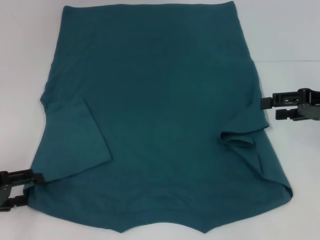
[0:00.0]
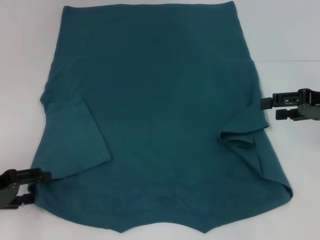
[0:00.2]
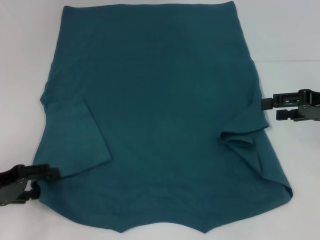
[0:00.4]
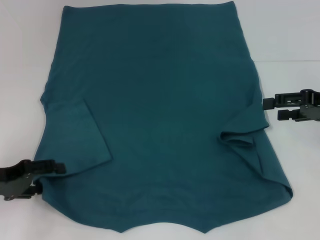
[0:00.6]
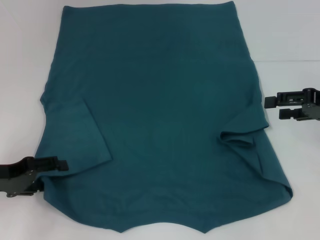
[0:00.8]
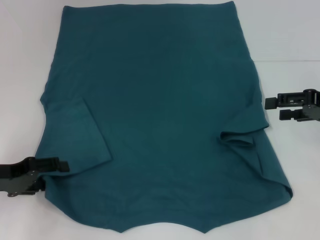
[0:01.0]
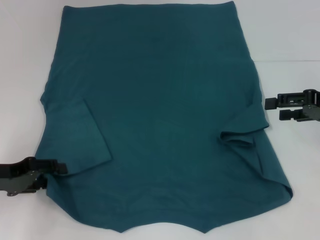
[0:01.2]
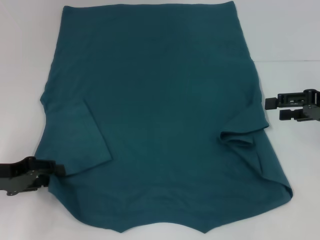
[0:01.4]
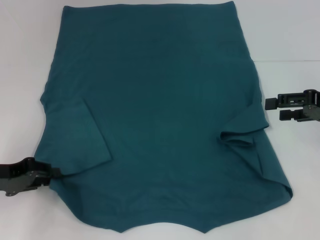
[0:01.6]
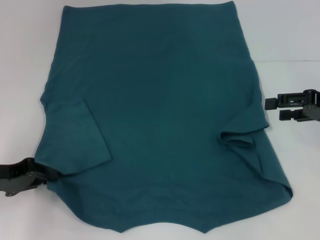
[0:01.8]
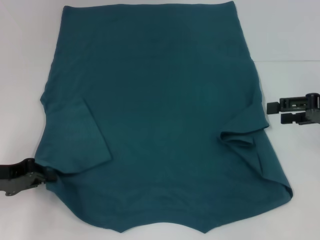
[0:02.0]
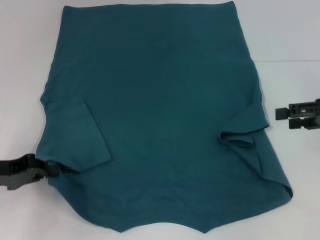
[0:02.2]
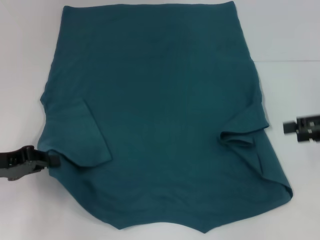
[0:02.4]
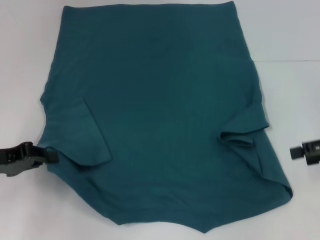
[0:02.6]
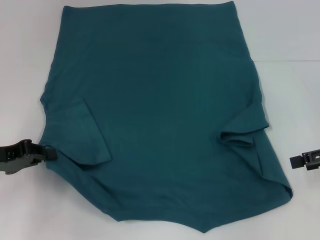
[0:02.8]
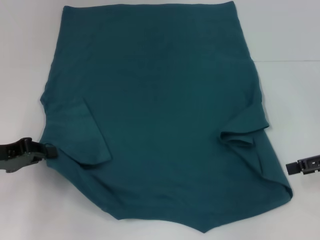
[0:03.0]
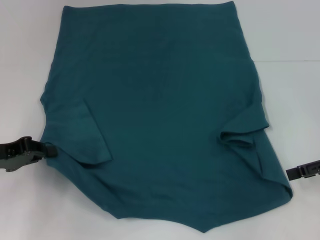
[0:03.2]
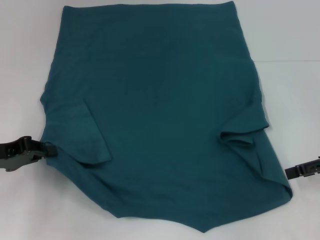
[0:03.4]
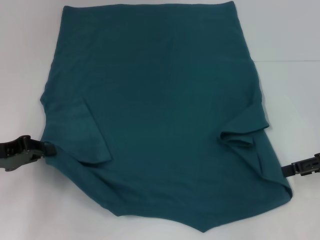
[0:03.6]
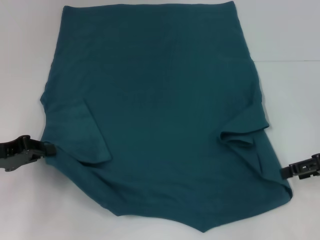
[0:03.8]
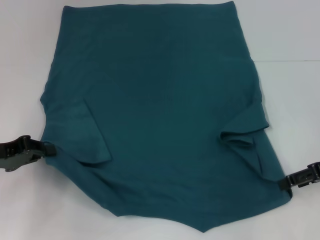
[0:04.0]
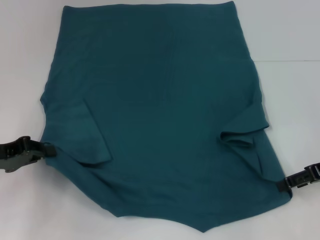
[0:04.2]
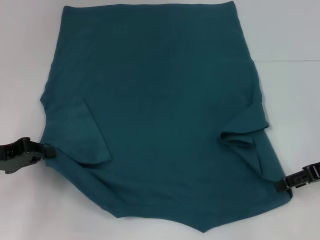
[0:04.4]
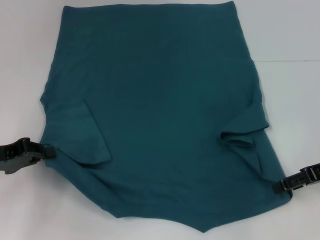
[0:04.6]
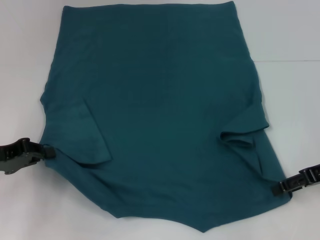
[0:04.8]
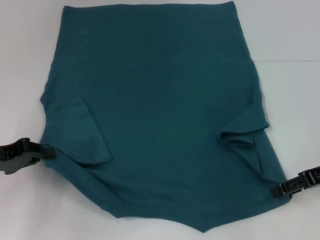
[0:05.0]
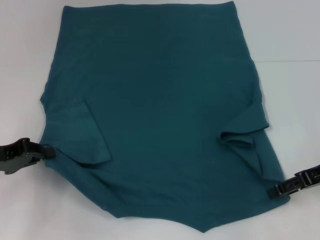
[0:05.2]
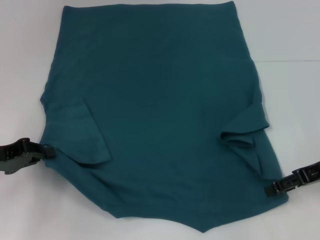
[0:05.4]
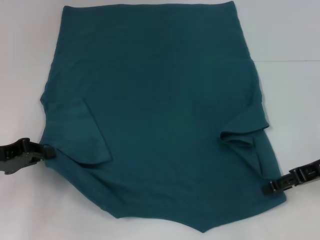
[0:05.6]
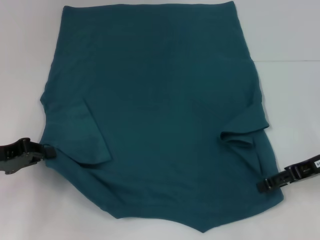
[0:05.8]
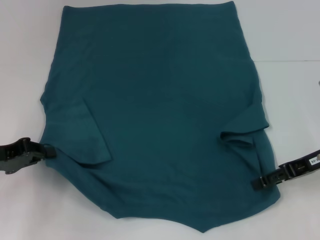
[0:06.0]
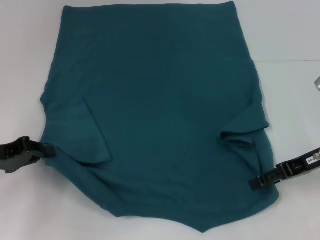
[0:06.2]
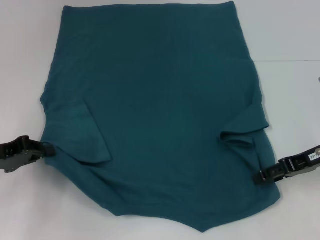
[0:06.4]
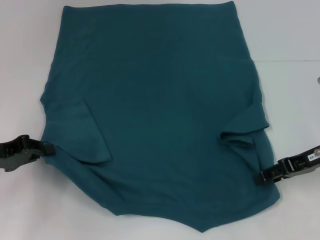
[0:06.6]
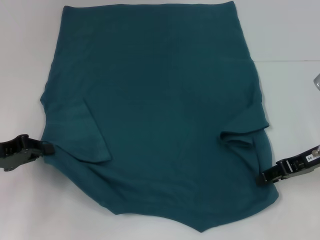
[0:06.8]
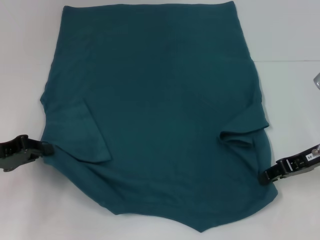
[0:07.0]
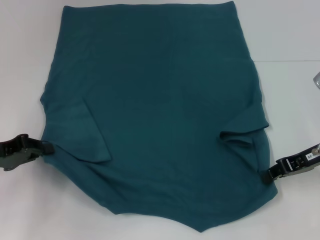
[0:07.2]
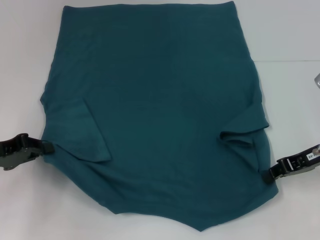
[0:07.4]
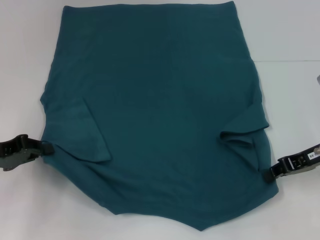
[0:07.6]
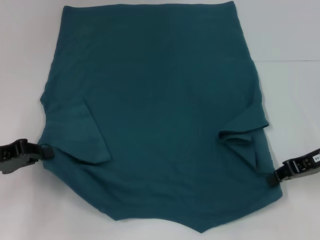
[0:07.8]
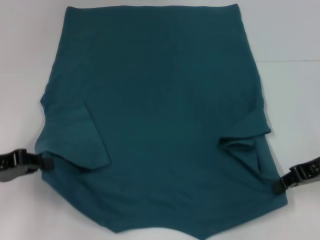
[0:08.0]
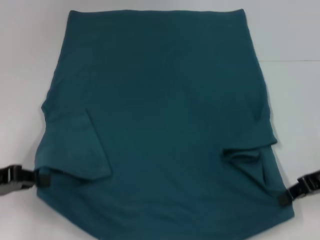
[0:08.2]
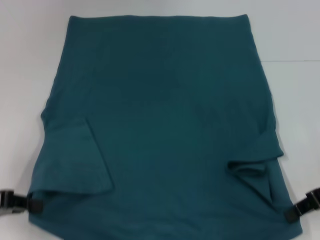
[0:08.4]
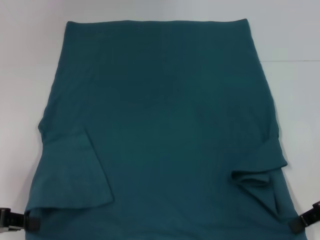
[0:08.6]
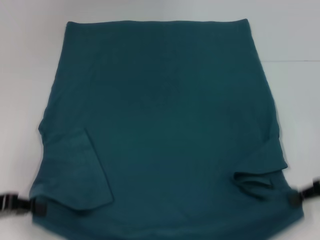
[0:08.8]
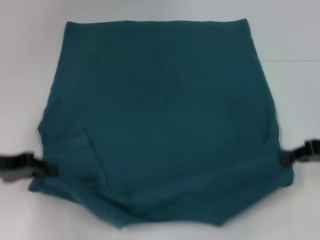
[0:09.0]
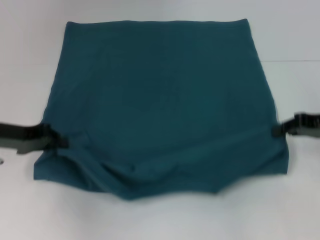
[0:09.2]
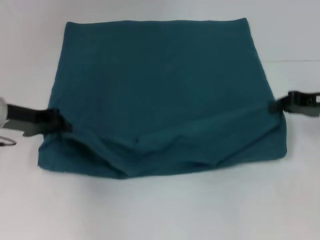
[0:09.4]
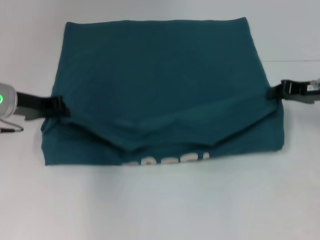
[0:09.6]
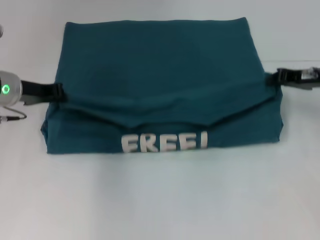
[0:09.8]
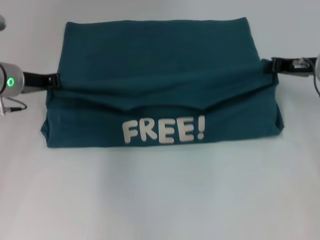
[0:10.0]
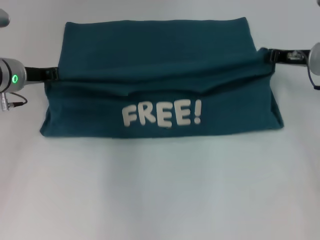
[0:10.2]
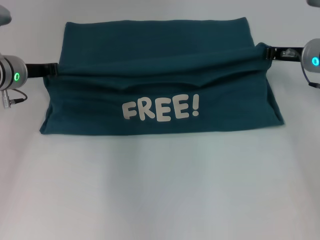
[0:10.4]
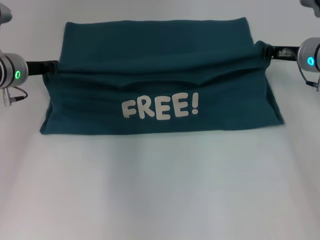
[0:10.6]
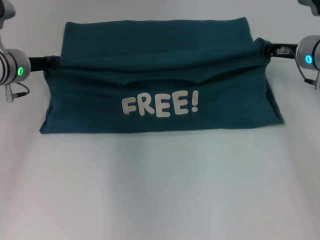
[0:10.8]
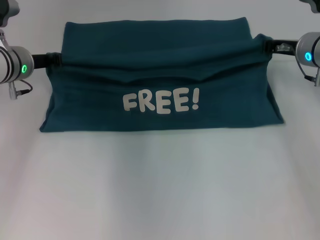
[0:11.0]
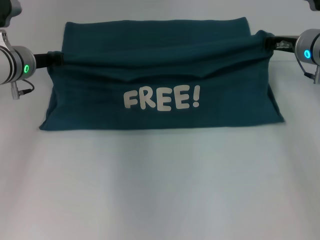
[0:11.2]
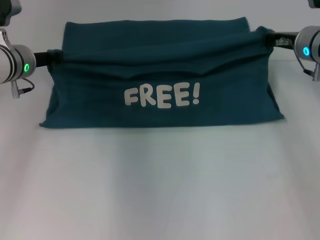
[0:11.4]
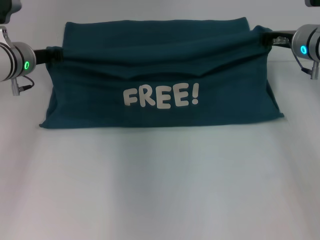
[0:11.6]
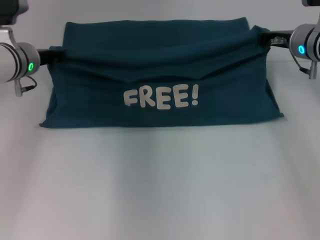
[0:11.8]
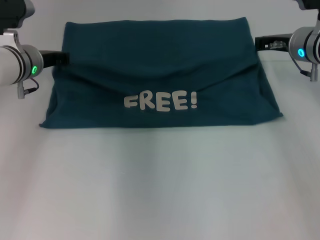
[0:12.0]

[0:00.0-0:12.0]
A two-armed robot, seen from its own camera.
Step, 0:02.0 to 0:07.4: Grab the bottom right corner with your right hand.
0:00.0 to 0:01.6: The left gripper closes its fingers.
0:01.6 to 0:03.0: The left gripper closes up.
0:03.0 to 0:04.4: The grippers make only small movements.
0:04.4 to 0:06.0: The grippers stay close to where they were, moving slightly.
0:06.0 to 0:07.6: The right gripper closes its fingers.
0:07.6 to 0:09.0: The right gripper ends up some 5 cm from where it was.
0:09.0 to 0:10.4: The left gripper moves forward and to the right, roughly 15 cm; the right gripper heads forward and to the left, covering about 15 cm.
0:10.4 to 0:12.0: The grippers move only a little.

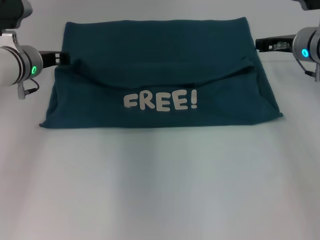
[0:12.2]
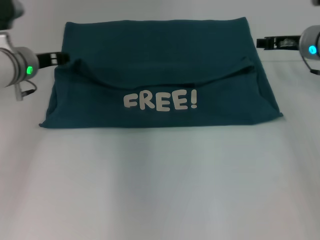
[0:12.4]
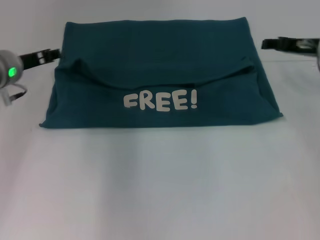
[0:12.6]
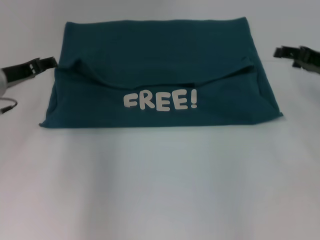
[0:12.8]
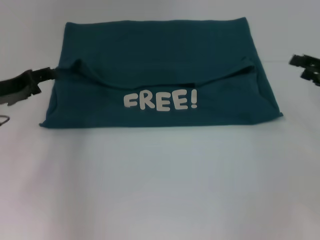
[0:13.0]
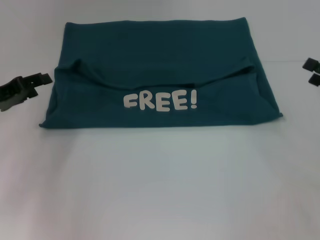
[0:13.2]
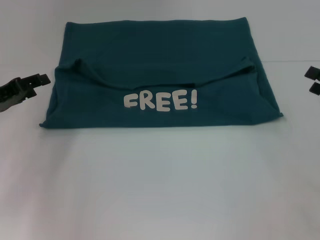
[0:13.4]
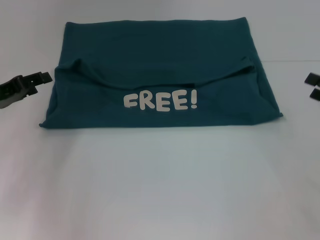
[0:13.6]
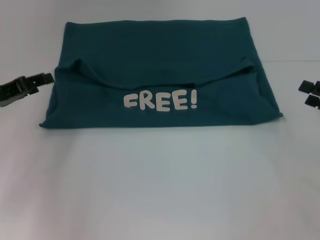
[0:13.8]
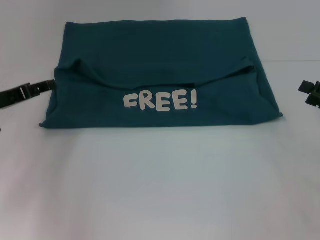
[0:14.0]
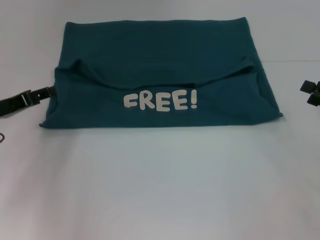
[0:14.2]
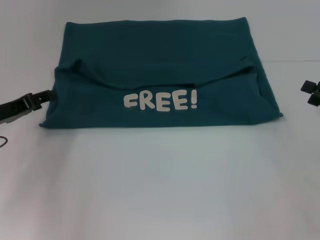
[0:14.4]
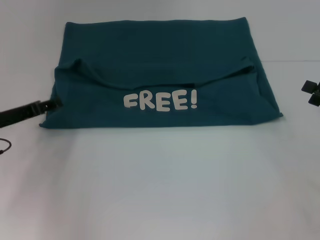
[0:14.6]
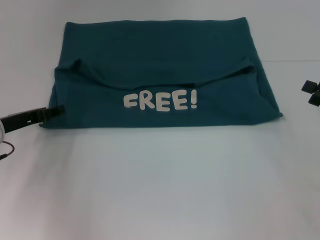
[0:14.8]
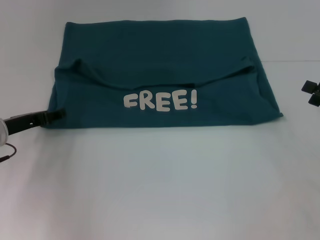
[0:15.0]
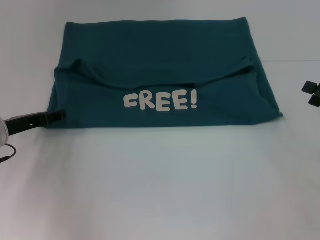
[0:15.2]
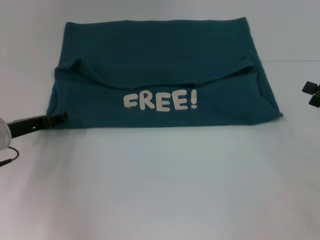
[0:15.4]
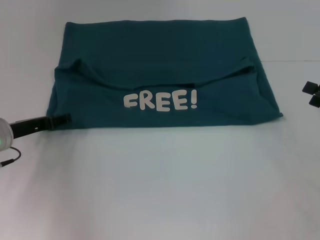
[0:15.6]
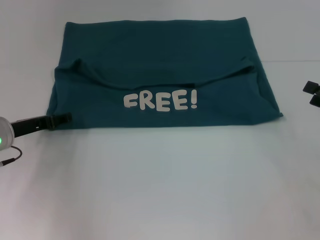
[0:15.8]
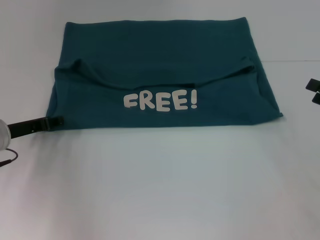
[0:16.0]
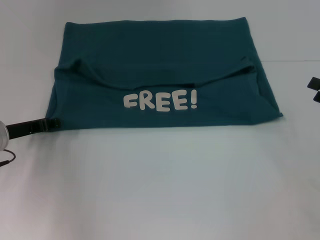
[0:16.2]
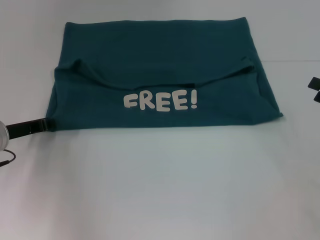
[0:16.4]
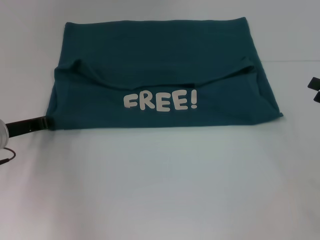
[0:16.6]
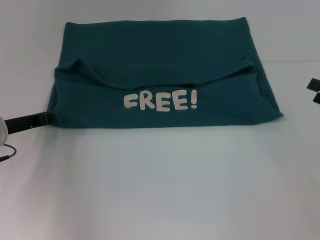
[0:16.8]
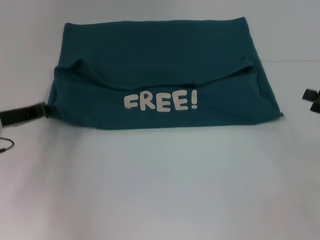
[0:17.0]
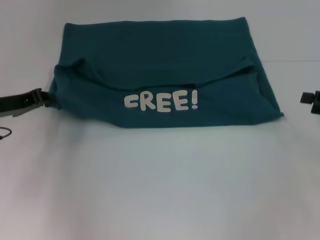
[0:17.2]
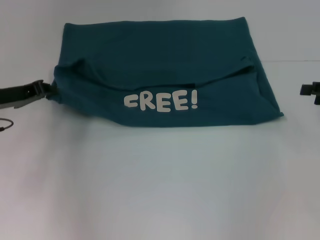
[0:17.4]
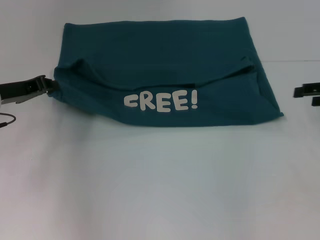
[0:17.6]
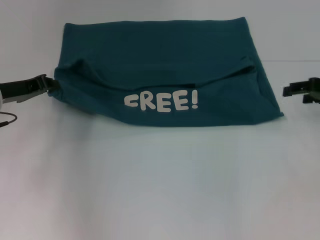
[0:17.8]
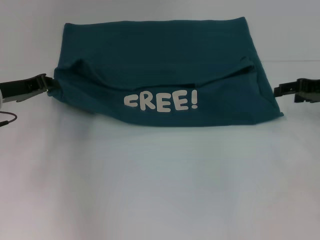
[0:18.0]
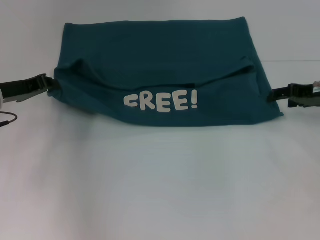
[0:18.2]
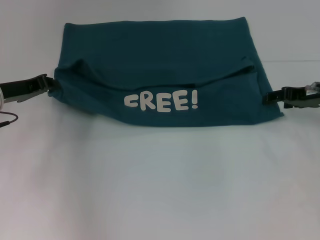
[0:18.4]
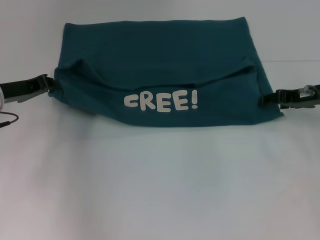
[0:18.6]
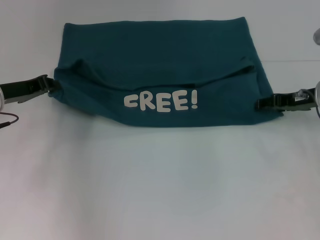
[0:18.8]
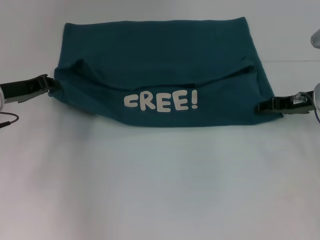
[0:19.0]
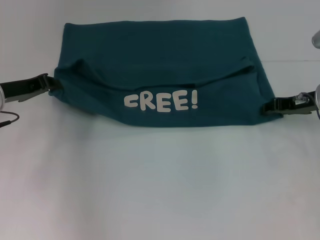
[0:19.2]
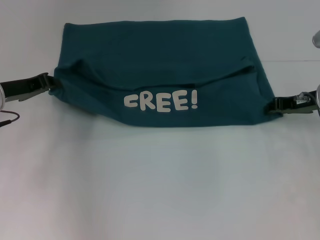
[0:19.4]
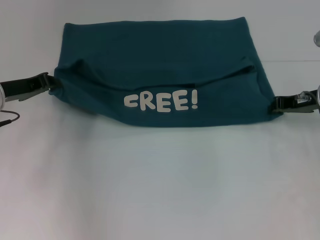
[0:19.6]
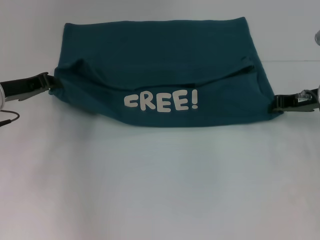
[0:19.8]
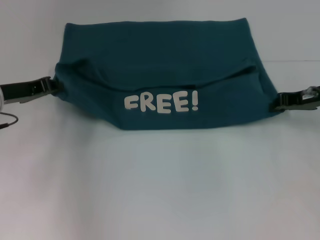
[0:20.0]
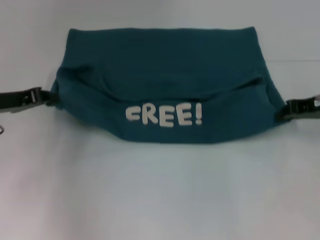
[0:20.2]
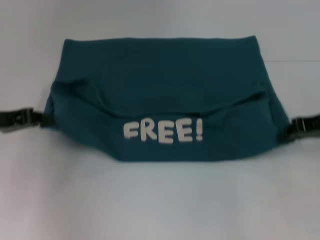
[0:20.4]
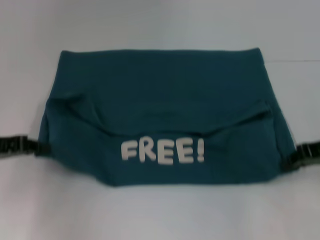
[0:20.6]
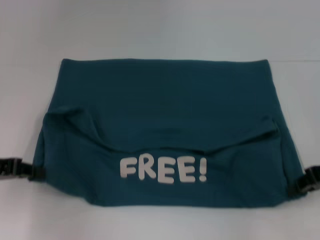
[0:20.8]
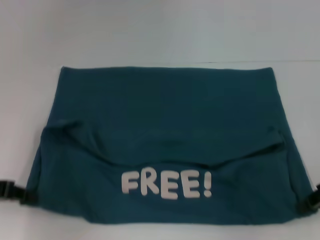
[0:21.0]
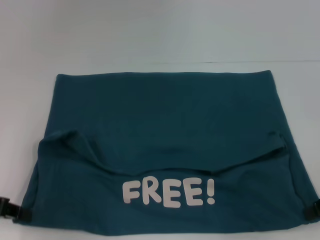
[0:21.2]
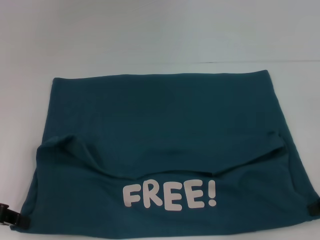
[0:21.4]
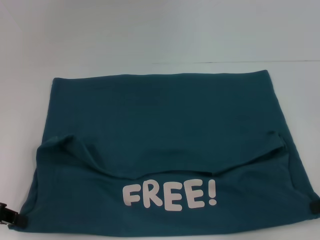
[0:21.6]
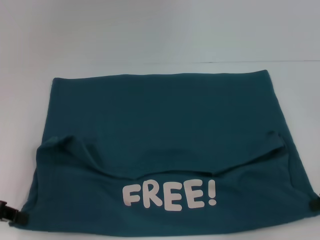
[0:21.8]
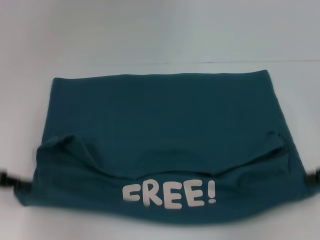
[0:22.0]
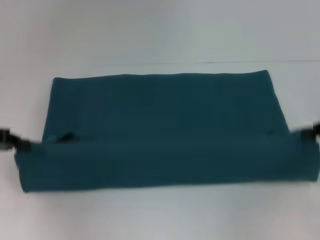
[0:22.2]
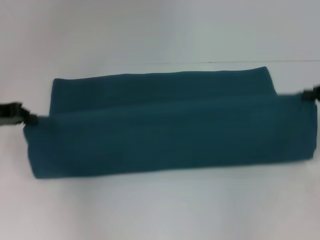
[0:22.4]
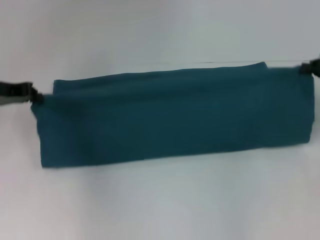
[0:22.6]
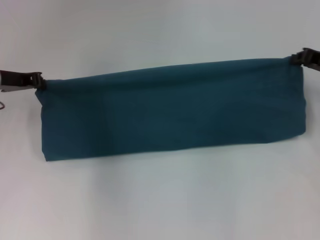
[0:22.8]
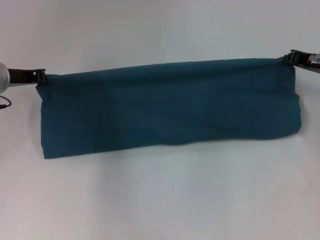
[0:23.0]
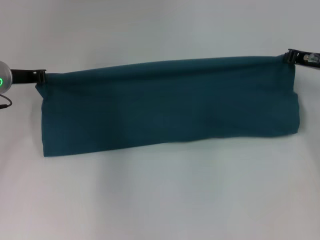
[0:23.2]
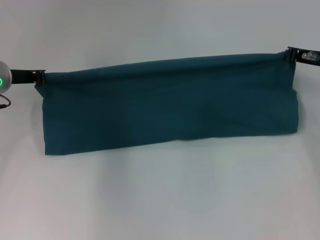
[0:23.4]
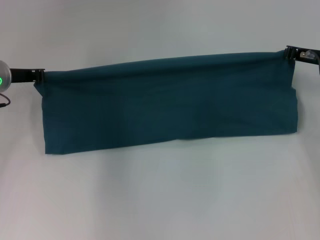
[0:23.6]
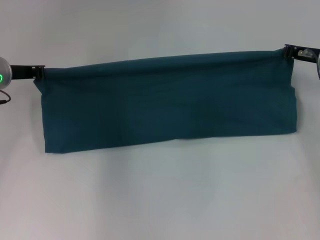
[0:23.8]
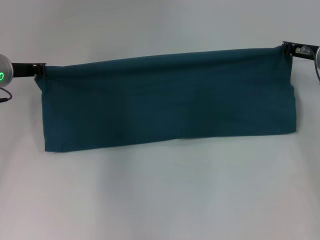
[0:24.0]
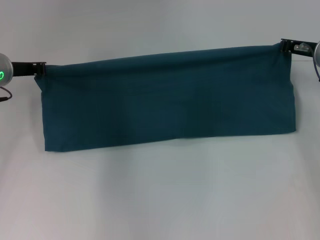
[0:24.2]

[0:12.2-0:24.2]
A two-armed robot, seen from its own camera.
Step, 0:12.4 to 0:21.6: Pull the clothes with your left hand.
Step, 0:12.4 to 0:21.6: Pull the clothes with your right hand.
0:12.2 to 0:13.8: The left gripper shifts roughly 15 cm backward and to the left, and opens its fingers. Meanwhile the right gripper goes approximately 20 cm backward and to the right, and opens up.
0:13.8 to 0:15.2: The left gripper is displaced downward by some 5 cm.
0:15.2 to 0:16.6: The left gripper closes.
0:16.6 to 0:18.2: The left gripper shifts some 5 cm upward. The right gripper goes some 15 cm forward and to the left.
0:18.2 to 0:19.8: The right gripper closes its fingers.
0:19.8 to 0:21.2: The right gripper shifts about 15 cm backward and to the right. Meanwhile the left gripper is displaced backward by roughly 15 cm.
0:21.2 to 0:22.6: The grippers both shift forward by approximately 10 cm.
0:22.6 to 0:24.2: The right gripper heads to the left and forward, covering some 10 cm. The left gripper ends up some 5 cm from where it was.
